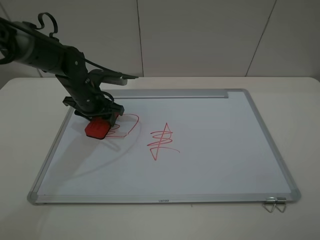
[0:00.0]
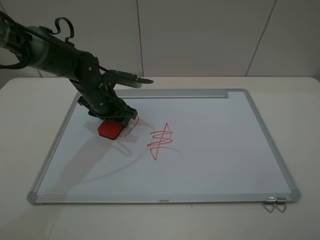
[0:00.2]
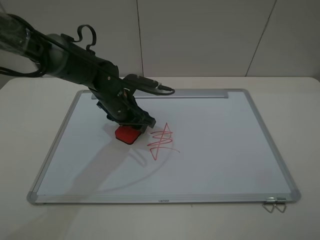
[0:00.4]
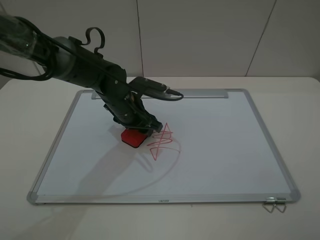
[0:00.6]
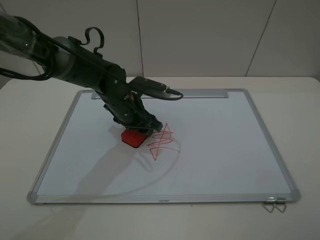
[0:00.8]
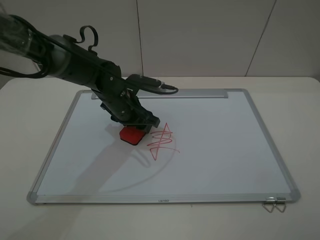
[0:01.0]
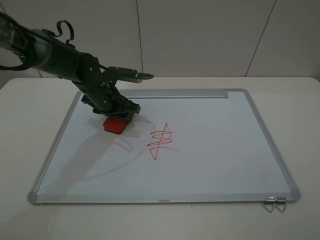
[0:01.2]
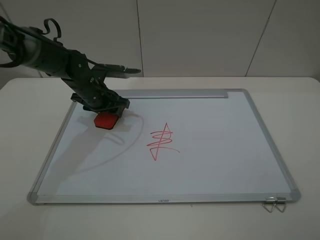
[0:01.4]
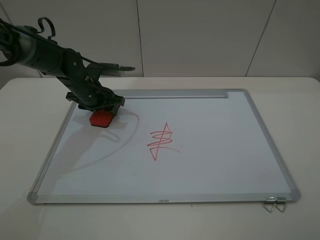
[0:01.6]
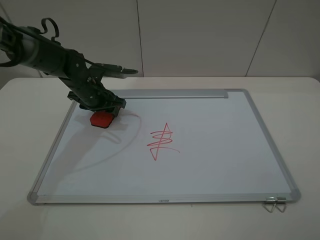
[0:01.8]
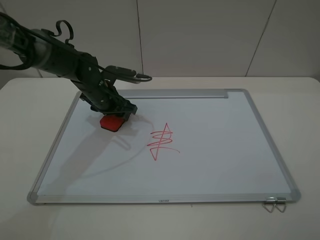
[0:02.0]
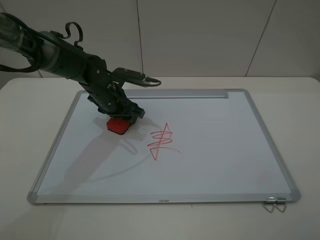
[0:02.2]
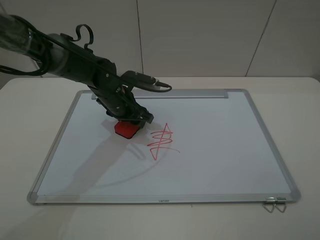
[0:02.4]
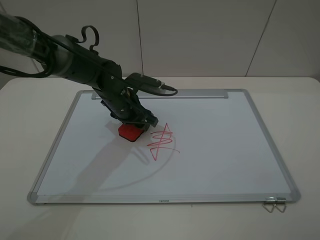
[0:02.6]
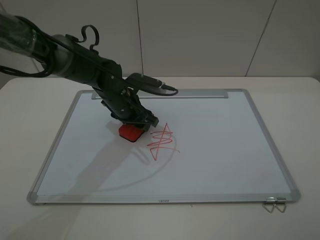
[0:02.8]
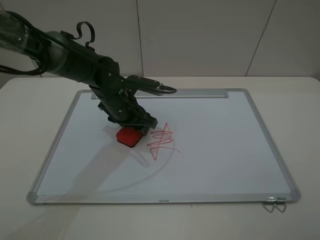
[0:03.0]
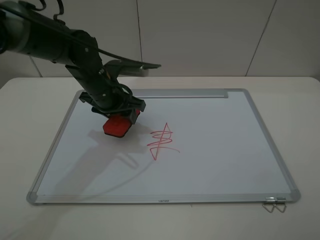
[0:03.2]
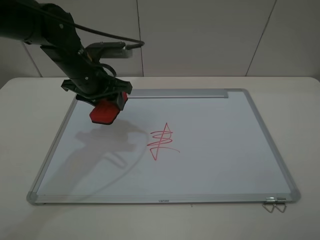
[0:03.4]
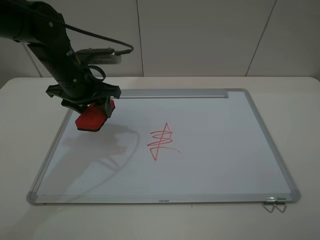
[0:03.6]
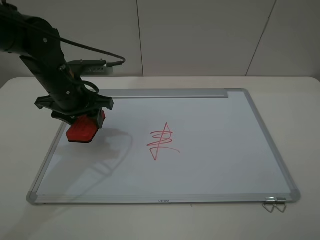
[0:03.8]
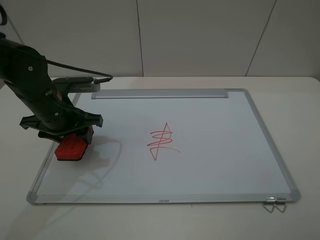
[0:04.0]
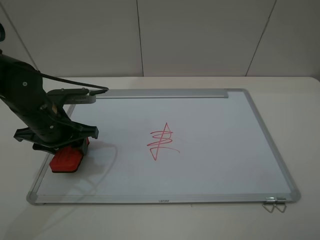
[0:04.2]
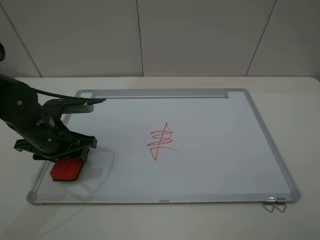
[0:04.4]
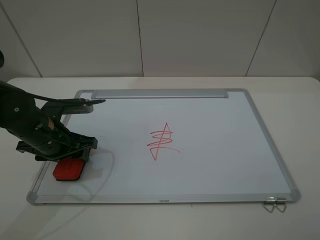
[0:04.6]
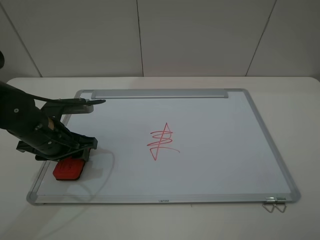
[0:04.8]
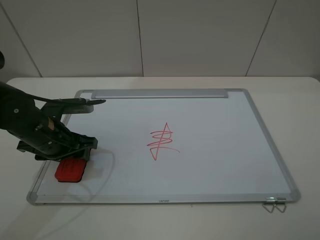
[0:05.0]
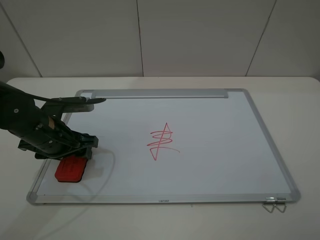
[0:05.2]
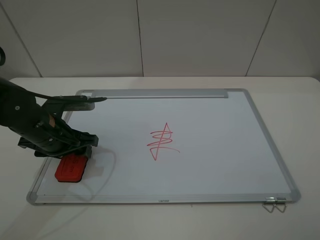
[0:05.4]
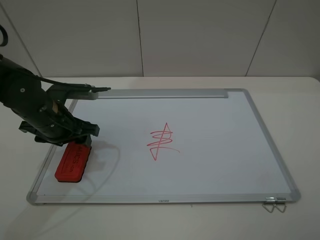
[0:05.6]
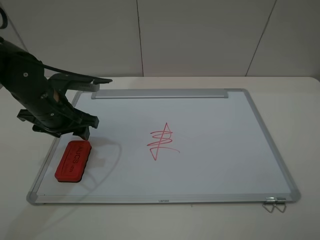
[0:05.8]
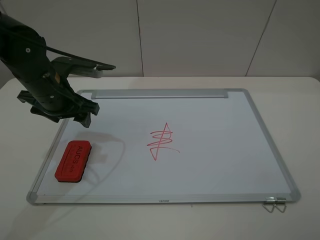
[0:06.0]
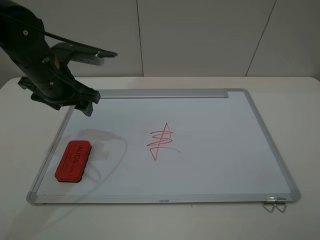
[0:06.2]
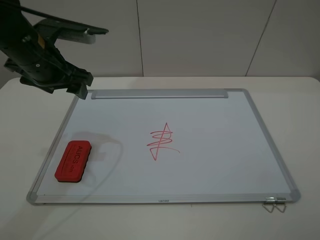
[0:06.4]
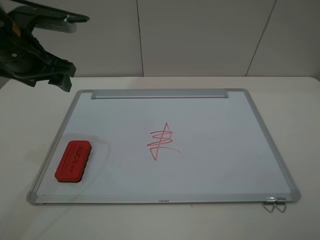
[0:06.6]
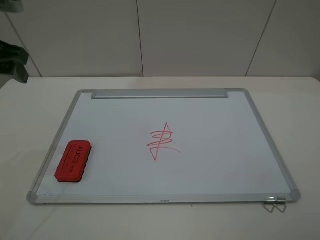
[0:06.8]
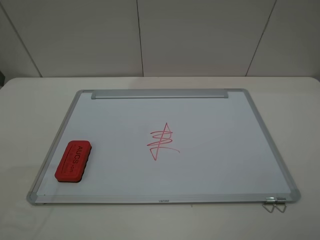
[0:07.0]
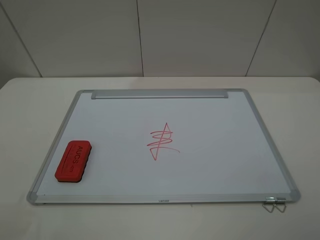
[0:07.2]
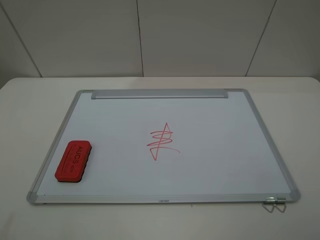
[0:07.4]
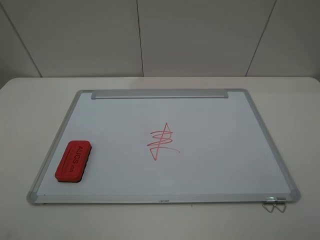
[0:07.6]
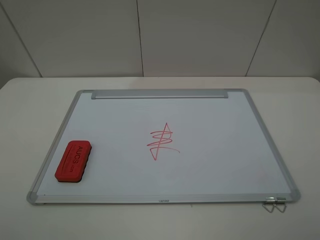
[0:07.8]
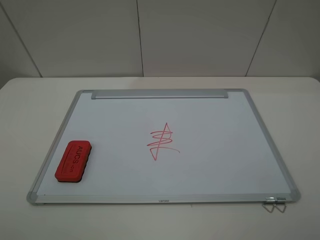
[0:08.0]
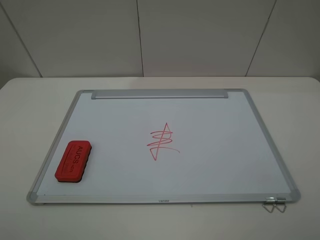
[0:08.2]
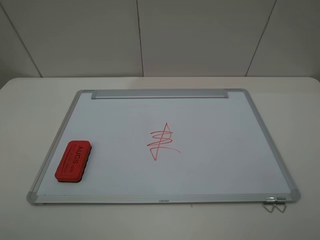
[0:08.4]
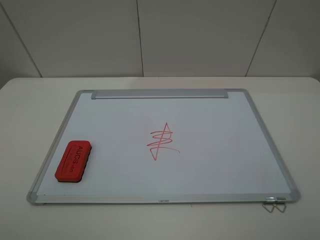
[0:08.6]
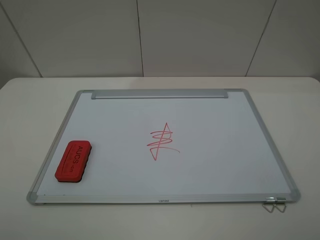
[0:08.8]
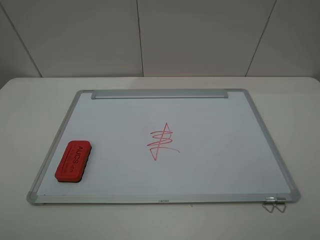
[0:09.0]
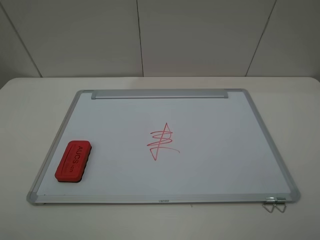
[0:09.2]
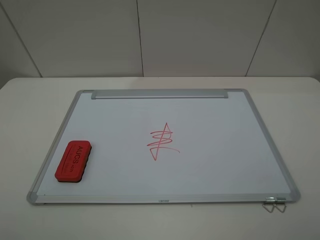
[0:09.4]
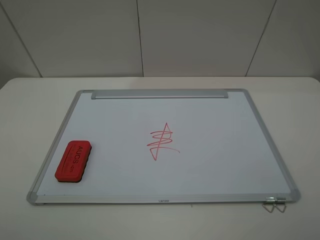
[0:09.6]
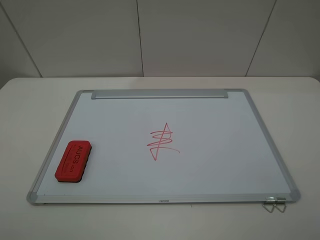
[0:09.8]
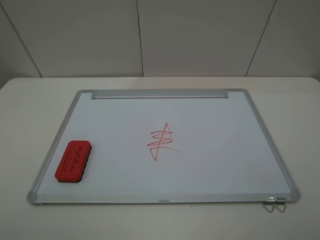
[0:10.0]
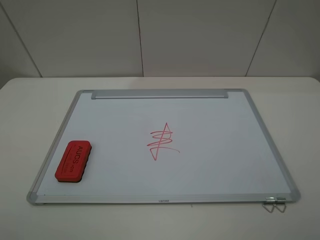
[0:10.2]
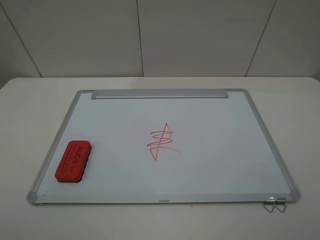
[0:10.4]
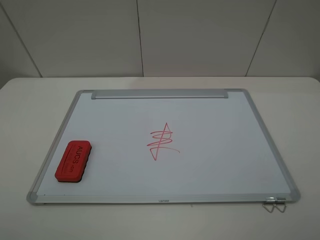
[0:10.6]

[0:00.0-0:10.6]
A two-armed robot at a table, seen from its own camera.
Step, 0:00.0 to 0:03.2: Grasp the eraser and wipe the blackboard with the left gripper.
Step, 0:03.4 to 0:05.8: Place the eraser with the left gripper.
0:00.0 to 0:01.6: The left gripper moves roughly 10 cm to the right and comes back.
0:01.6 to 0:03.0: The left gripper travels to the right and backward by approximately 10 cm.
0:03.0 to 0:04.6: The left gripper is displaced to the left and backward by some 15 cm.
0:04.6 to 0:06.0: The left gripper heads upward and forward, covering some 10 cm, and opens.
0:06.0 to 0:07.6: The left gripper goes about 30 cm backward, upward and to the left.
0:09.0 to 0:10.6: Both grippers stay about where they are.
